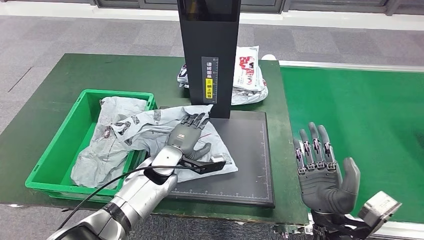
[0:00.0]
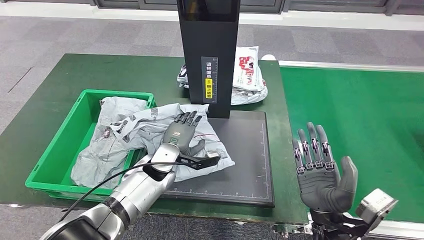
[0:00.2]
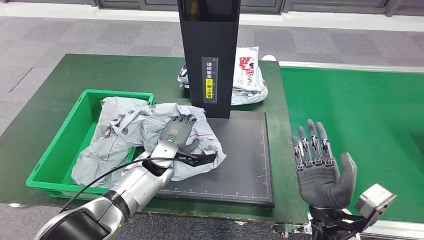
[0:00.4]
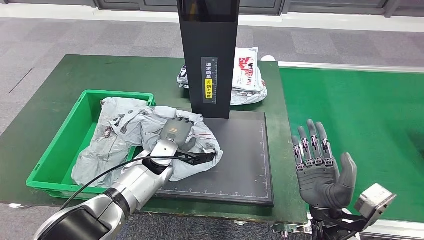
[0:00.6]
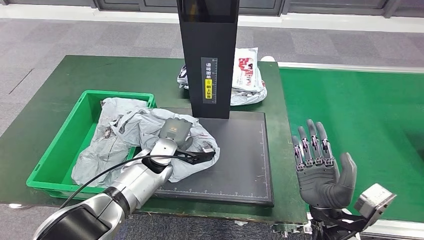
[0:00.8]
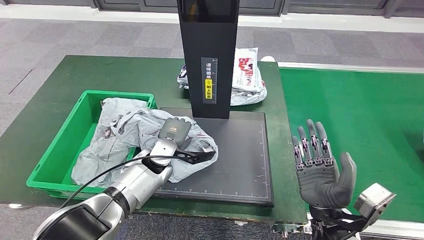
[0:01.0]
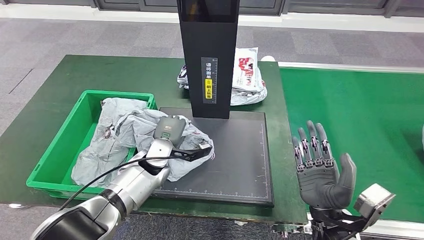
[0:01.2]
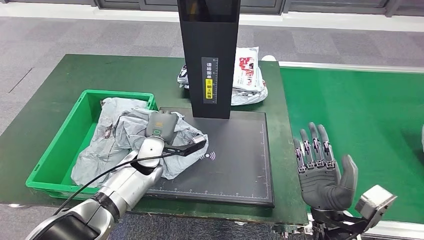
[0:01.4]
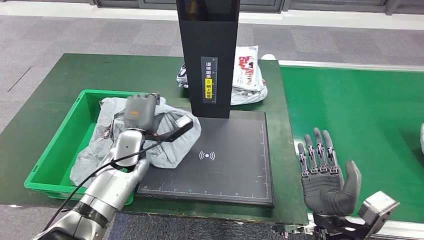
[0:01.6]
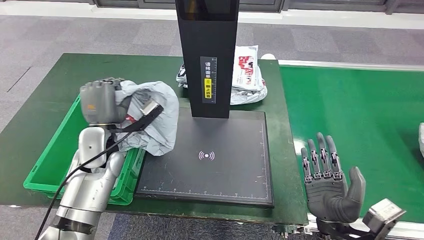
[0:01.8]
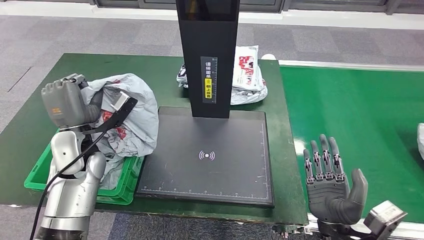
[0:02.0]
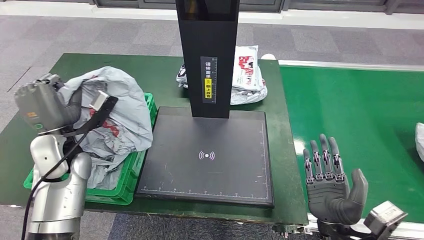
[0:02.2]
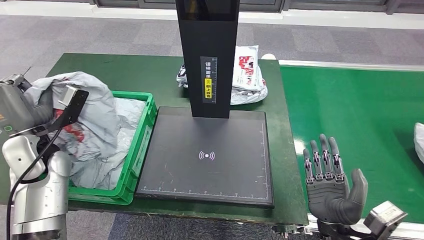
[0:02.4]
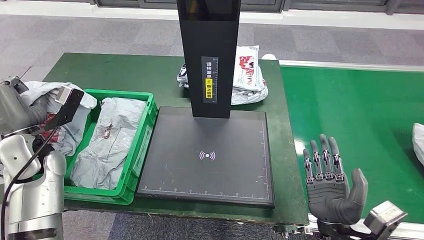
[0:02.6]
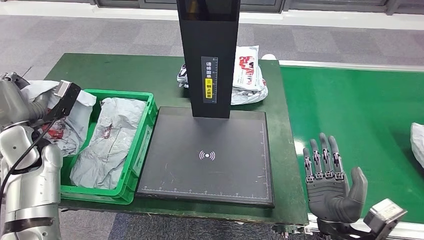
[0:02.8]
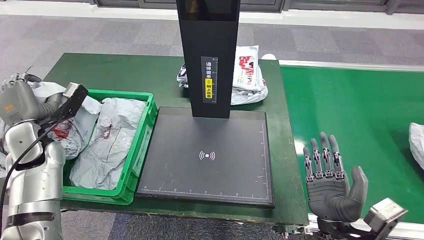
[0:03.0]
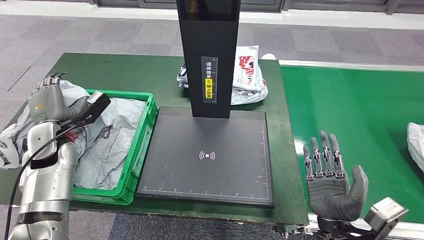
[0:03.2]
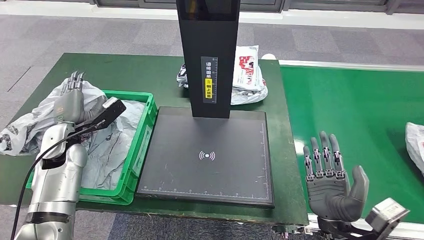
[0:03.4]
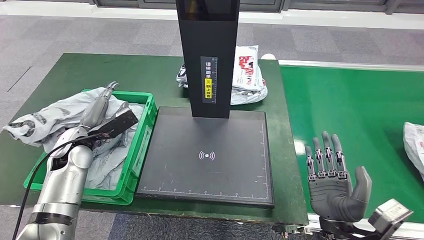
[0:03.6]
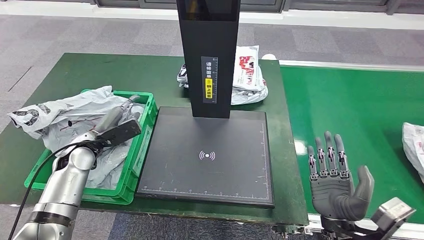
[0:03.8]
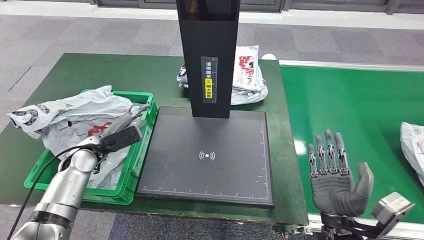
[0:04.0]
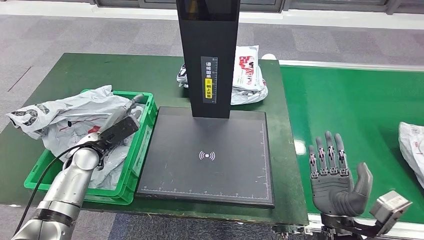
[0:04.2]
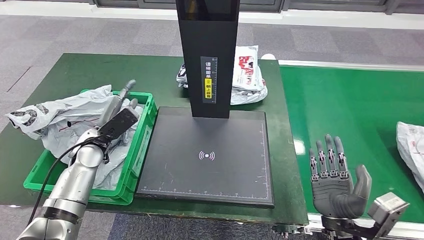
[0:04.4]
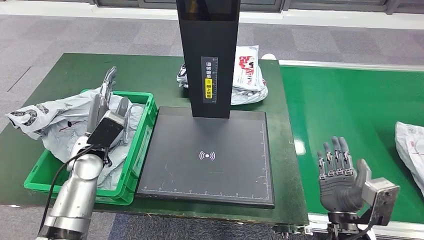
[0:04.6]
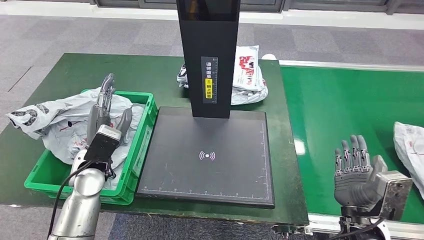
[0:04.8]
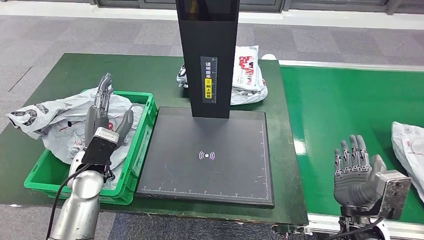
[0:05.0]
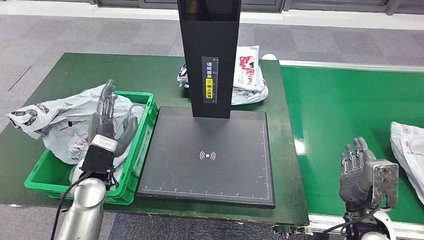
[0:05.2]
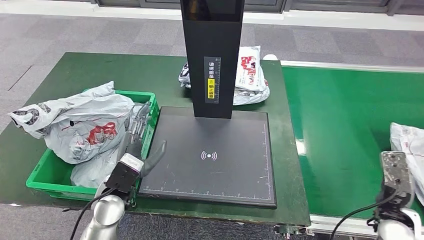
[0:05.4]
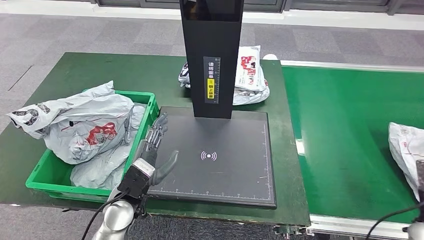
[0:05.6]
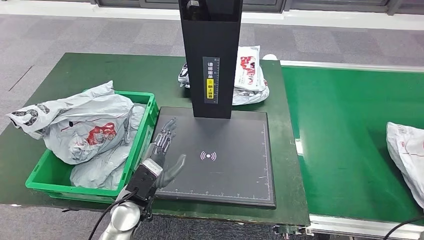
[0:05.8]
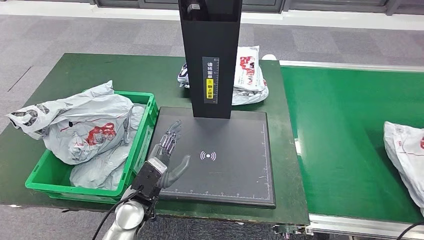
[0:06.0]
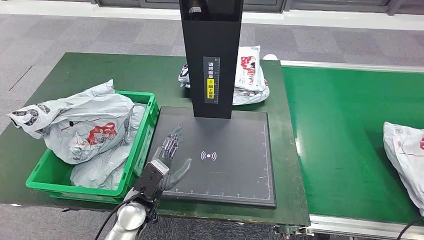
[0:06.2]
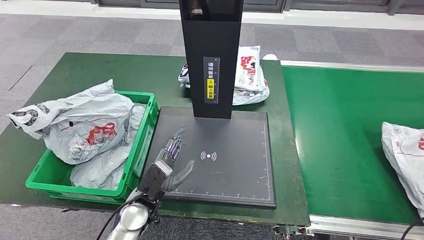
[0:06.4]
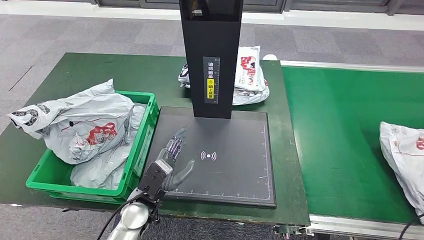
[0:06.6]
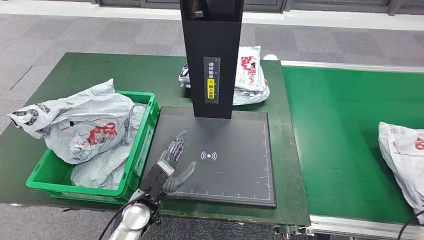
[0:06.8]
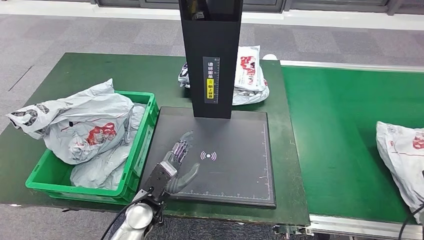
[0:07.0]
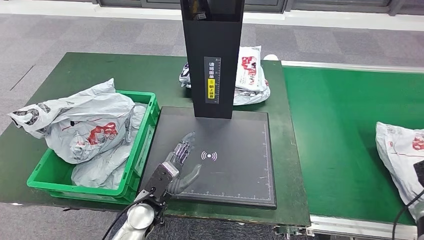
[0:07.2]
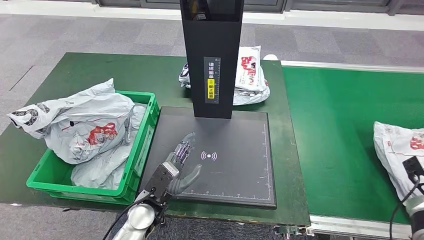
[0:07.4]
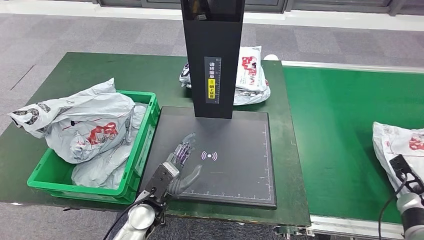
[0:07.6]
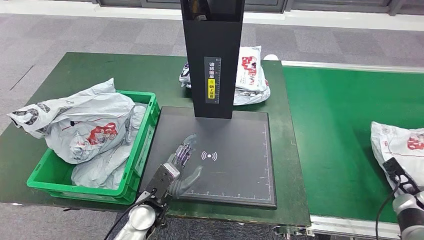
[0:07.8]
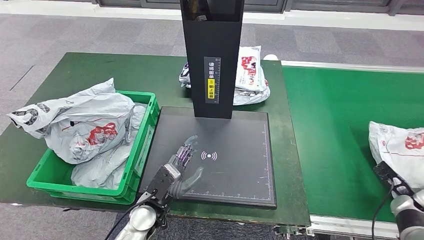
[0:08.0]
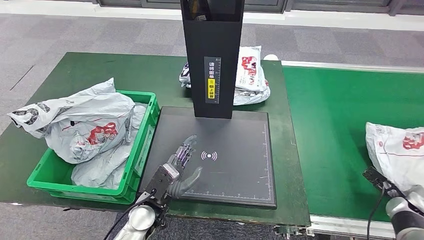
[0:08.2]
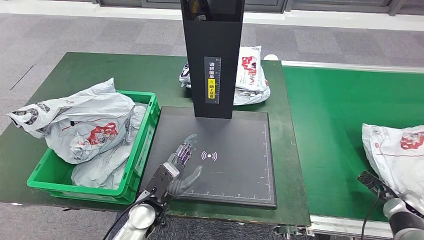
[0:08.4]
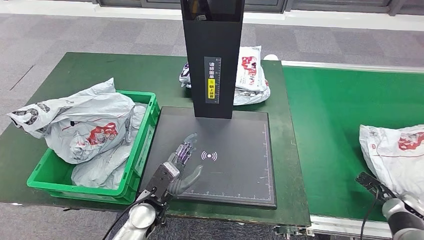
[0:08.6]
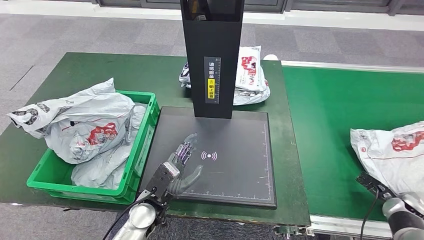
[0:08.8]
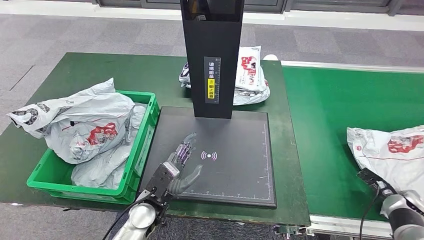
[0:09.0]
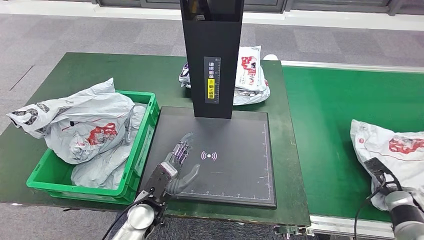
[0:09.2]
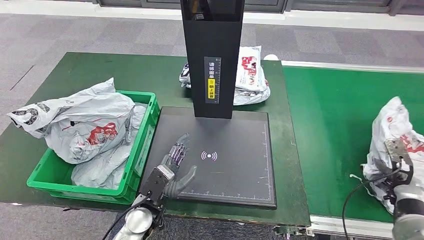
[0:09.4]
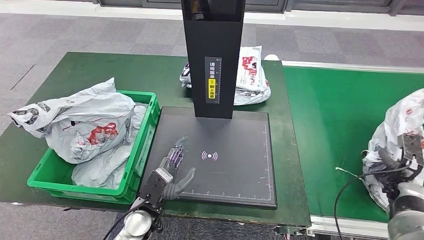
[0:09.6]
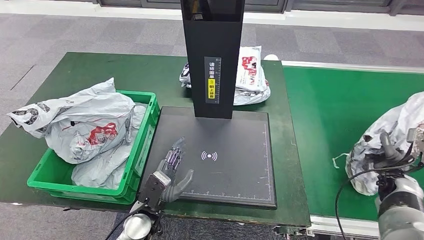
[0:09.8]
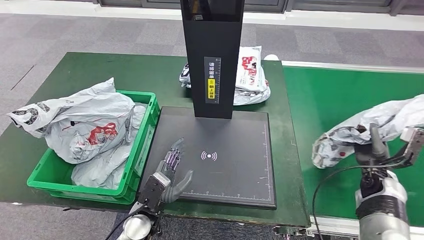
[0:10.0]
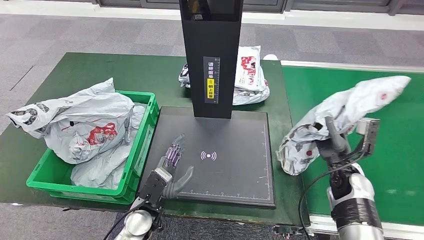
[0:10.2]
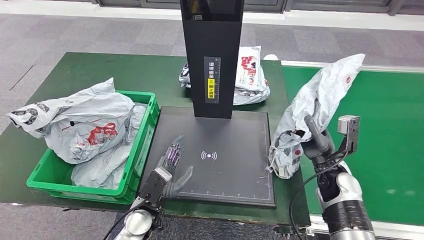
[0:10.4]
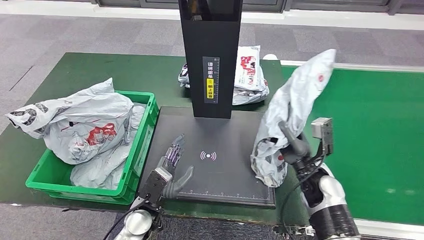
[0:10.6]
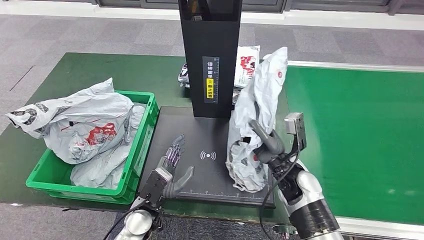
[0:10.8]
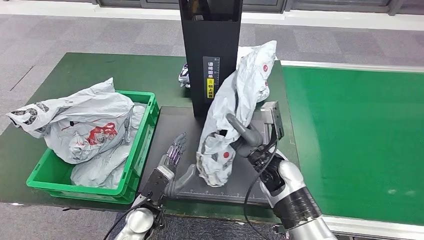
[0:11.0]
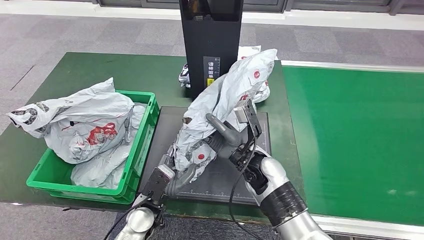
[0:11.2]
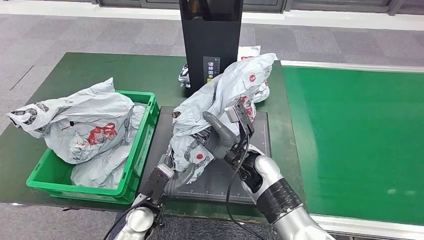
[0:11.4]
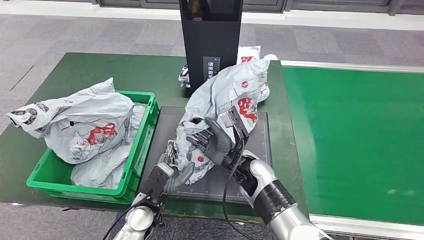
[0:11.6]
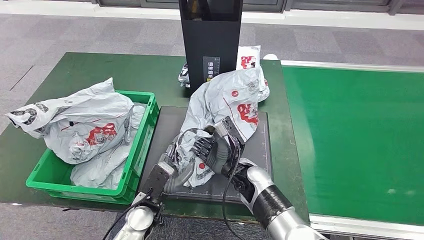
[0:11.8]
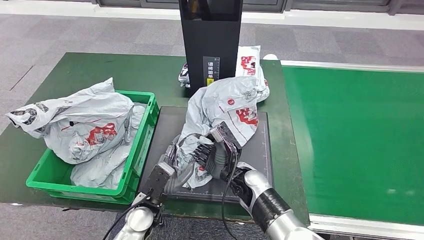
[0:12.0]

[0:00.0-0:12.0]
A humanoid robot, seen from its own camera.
Step, 0:00.0 to 0:02.0: Pick up the parcel from the inbound machine.
Step, 0:02.2 to 0:04.6: Place the parcel into the delivery box.
Step, 0:04.8 to 0:10.0: Pick up the parcel from the conveyor belt.
0:00.0 to 0:01.6: The left hand heads to the left, covering some 10 cm.
0:06.0 to 0:07.6: The right hand heads forward, covering about 10 cm.
0:09.0 to 0:10.4: The right hand travels to the left by some 20 cm.

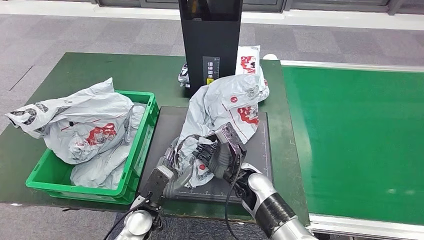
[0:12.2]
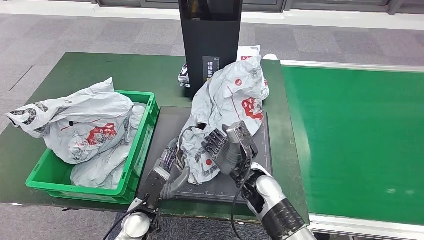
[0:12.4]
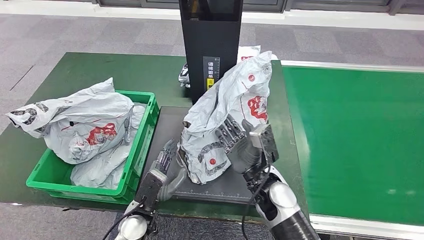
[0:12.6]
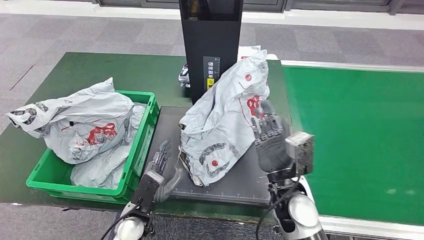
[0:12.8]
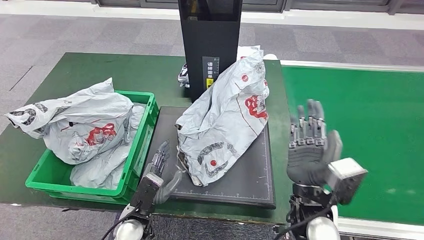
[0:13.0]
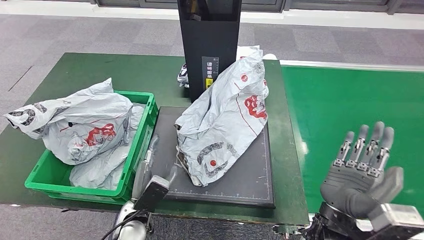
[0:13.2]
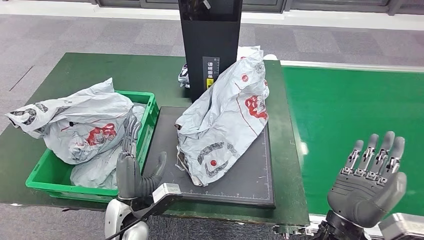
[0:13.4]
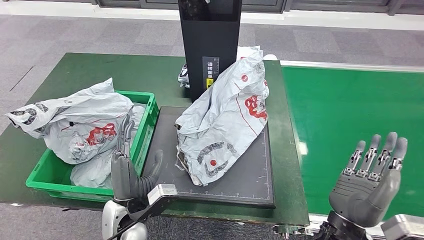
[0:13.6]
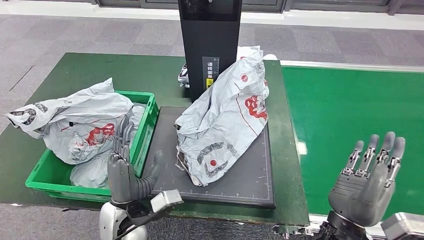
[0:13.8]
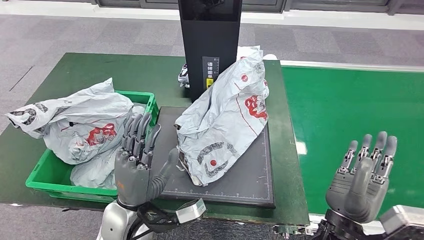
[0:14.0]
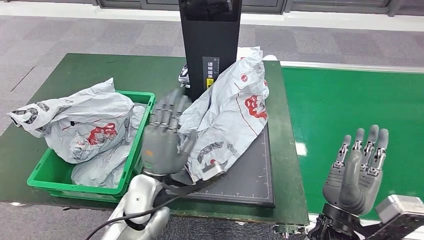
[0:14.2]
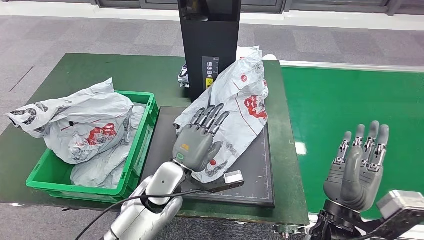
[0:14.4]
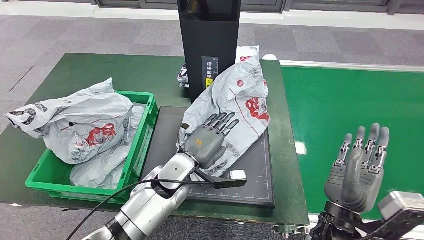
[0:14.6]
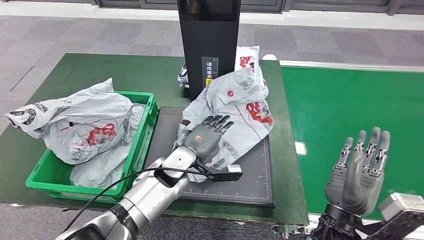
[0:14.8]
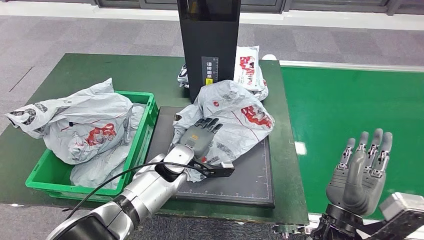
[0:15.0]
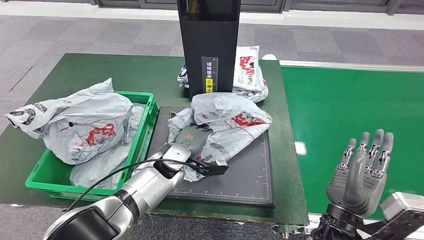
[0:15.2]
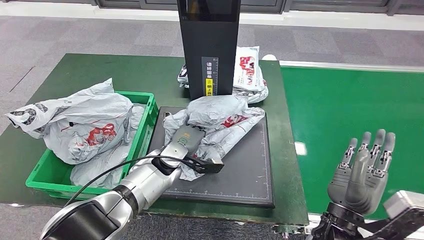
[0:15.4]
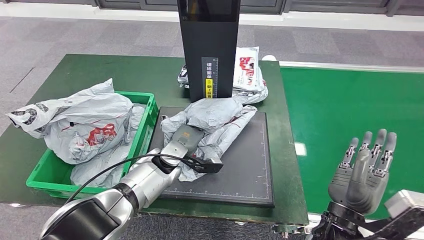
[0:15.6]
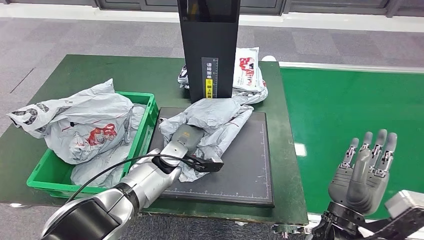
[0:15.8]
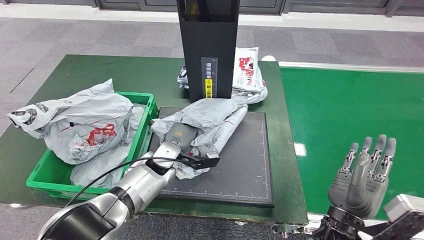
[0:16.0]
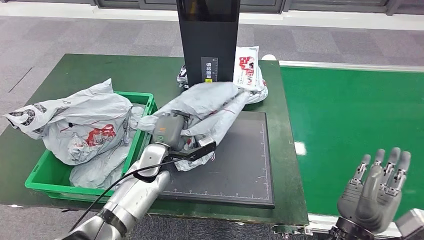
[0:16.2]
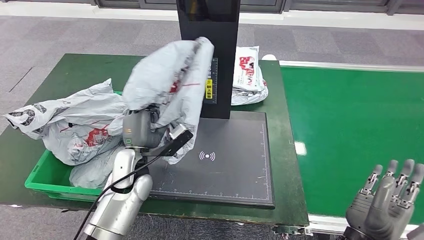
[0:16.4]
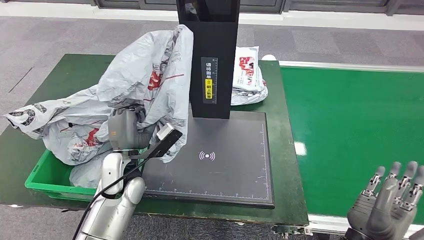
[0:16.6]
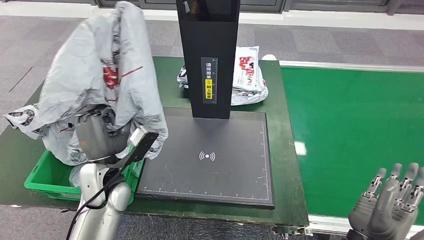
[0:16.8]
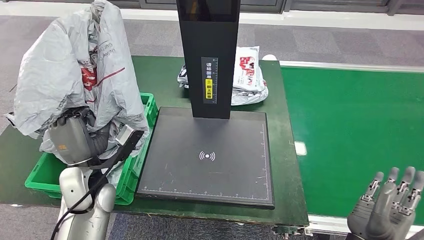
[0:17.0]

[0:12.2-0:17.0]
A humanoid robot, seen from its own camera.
Step, 0:13.2 to 0:16.6: Pick up the parcel from the inbound machine.
0:12.2 to 0:13.8: The left hand heads upward, covering about 10 cm; the right hand goes roughly 20 cm to the right, backward and upward.
